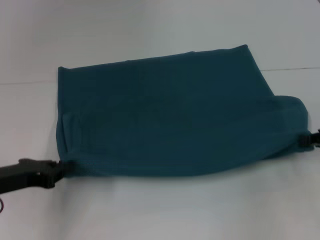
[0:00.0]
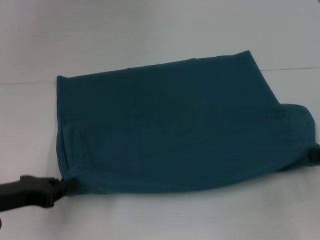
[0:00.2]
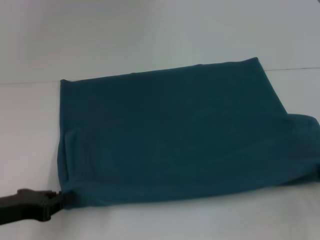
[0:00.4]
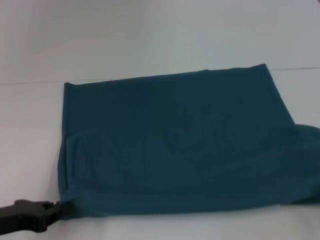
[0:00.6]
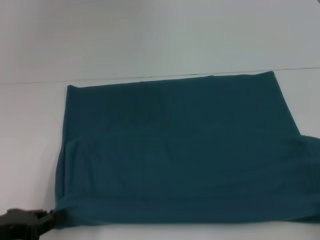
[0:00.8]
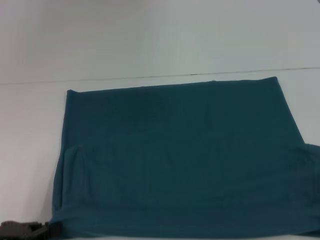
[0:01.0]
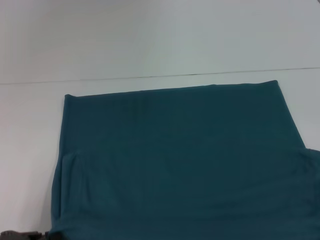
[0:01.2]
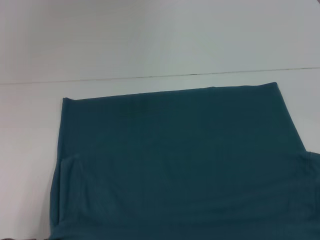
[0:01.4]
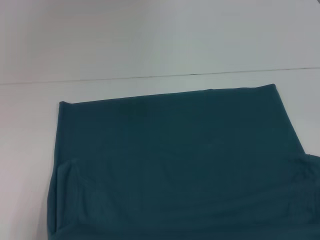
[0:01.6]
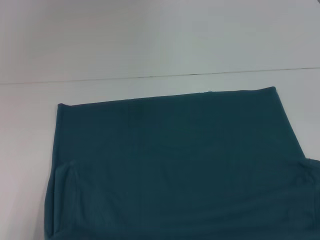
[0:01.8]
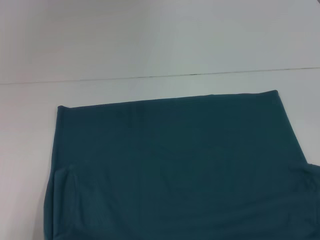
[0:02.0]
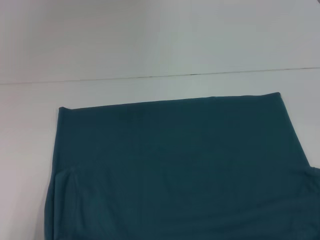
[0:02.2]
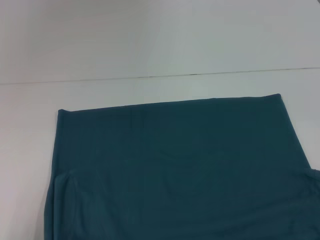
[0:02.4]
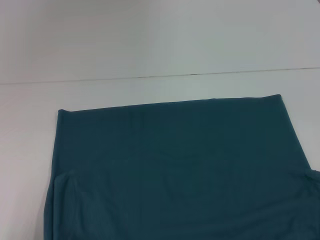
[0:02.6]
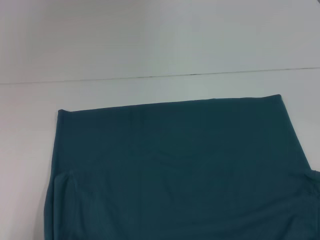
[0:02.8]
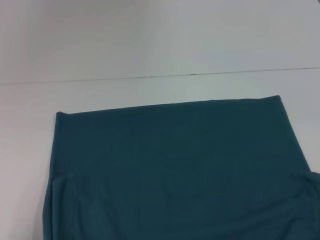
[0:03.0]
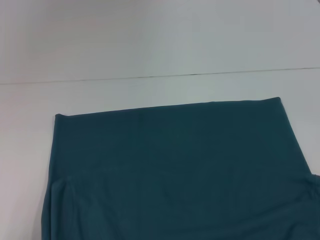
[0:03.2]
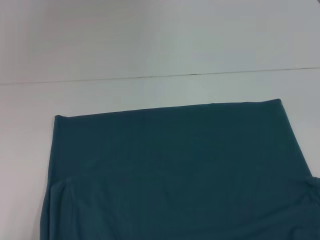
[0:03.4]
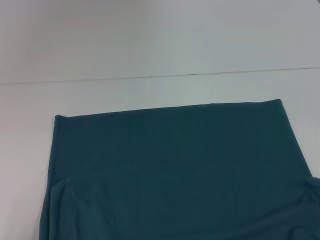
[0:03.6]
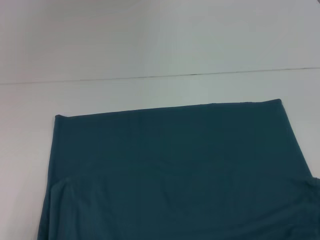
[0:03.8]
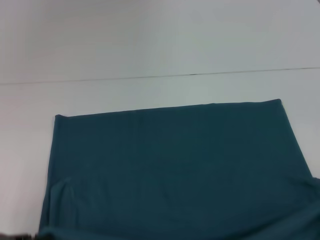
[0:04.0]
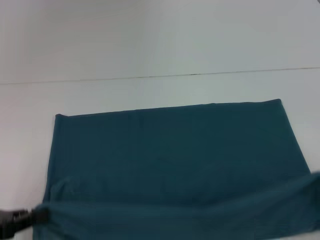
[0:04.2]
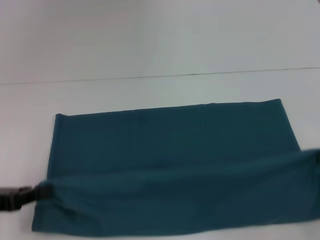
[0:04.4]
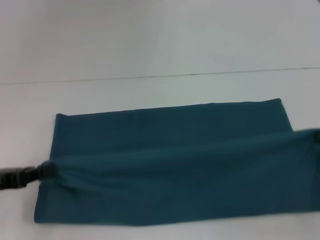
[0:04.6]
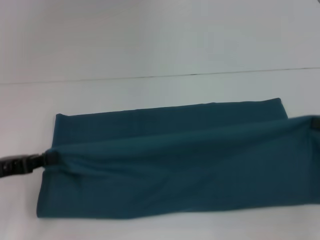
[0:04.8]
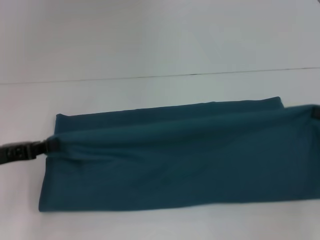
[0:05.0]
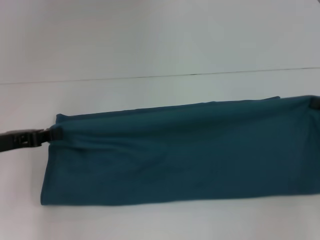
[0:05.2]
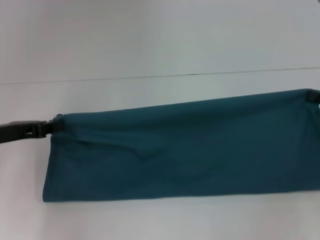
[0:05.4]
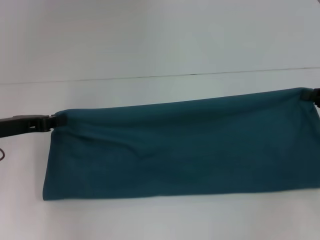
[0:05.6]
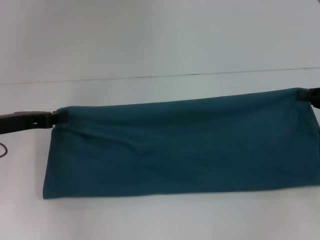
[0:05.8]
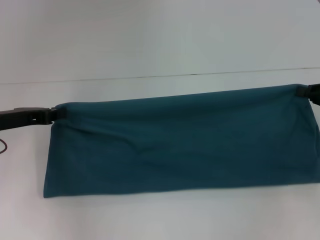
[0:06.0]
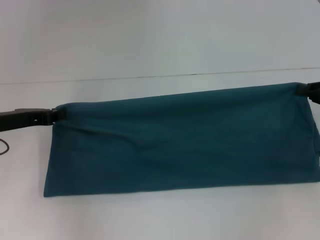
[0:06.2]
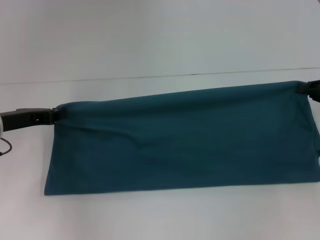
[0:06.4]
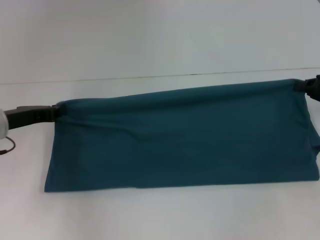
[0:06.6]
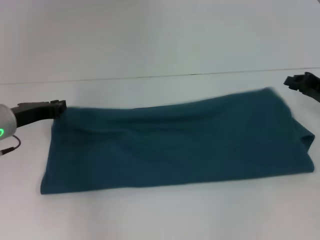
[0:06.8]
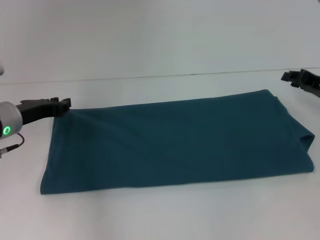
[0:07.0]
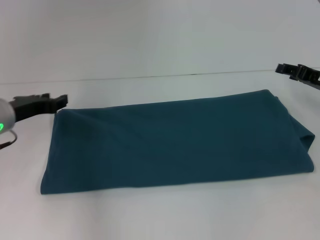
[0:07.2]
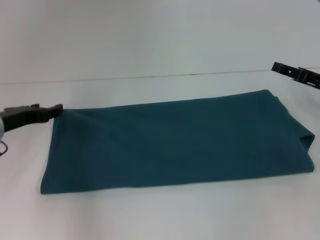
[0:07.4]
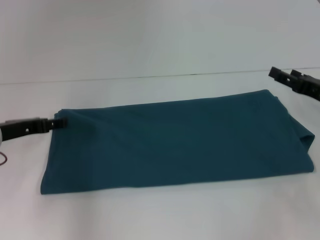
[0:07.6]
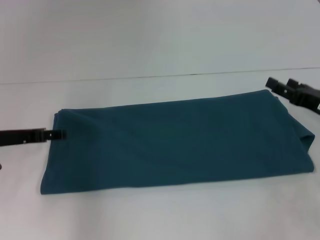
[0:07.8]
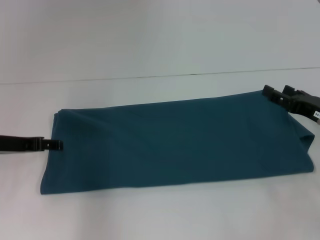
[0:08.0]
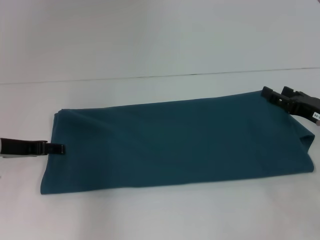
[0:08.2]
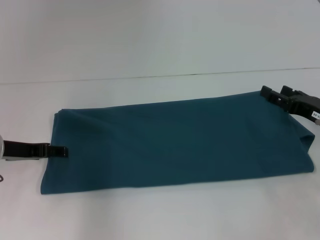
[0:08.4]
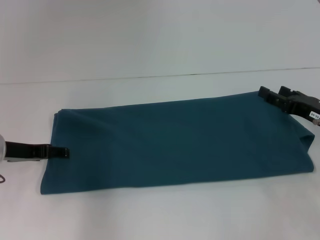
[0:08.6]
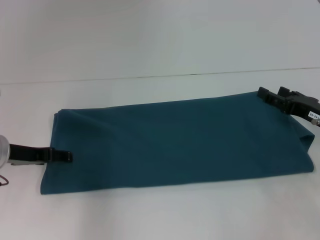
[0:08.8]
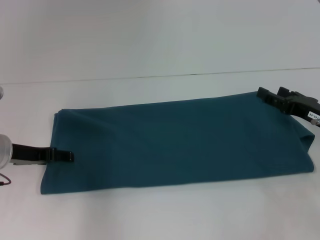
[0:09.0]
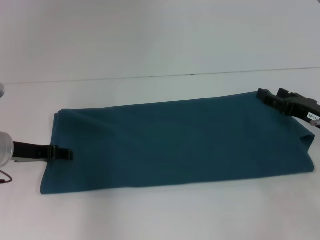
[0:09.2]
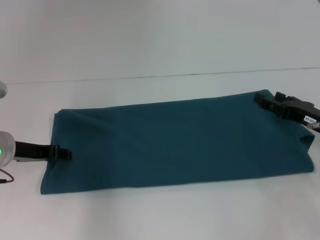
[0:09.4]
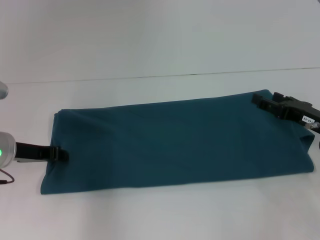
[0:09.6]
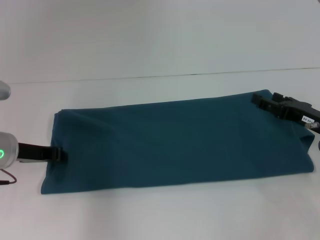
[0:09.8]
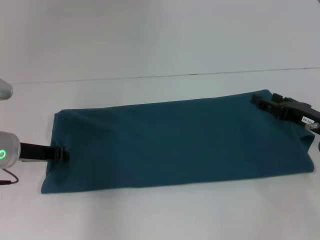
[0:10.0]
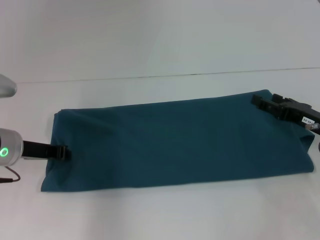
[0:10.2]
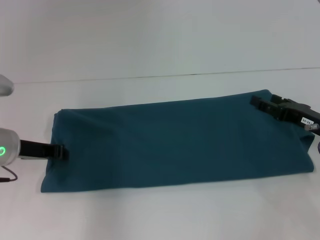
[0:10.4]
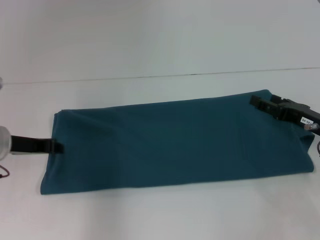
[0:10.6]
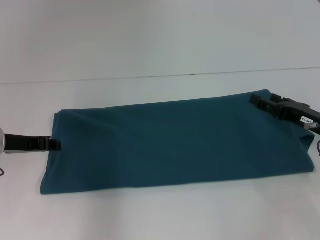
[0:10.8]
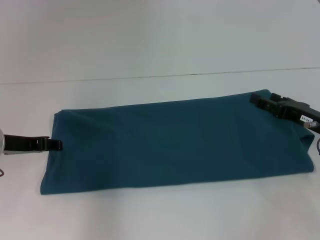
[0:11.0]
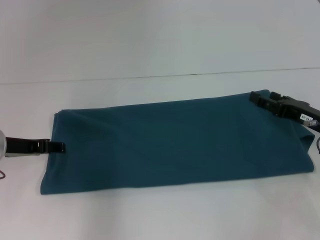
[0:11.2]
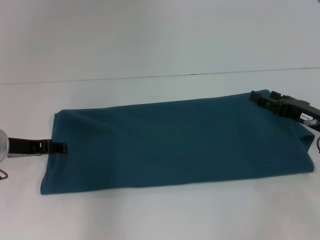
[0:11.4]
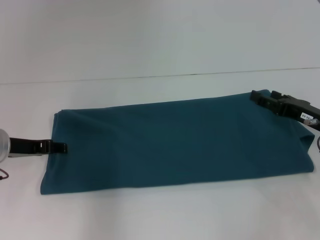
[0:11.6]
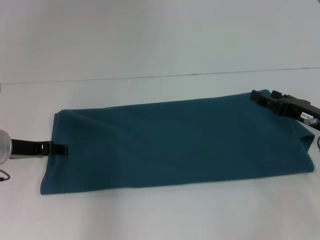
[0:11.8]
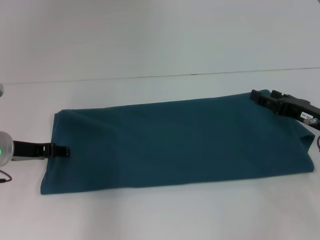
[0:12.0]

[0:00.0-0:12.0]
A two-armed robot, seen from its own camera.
Step, 0:00.0 to 0:03.6: Pull the clothes with your left hand.
Step, 0:00.0 to 0:03.6: Pull the clothes with your right hand.
Step, 0:03.8 to 0:07.2: Fold the clothes to the left.
Step, 0:03.8 to 0:07.2: Fold the clothes to the right.
0:00.0 to 0:01.6: Both grippers travel together backward, approximately 15 cm.
0:01.6 to 0:03.0: There are only small adjustments of the grippers.
0:03.0 to 0:04.4: The left gripper heads forward, covering some 10 cm. The right gripper heads forward and upward, covering roughly 10 cm.
0:04.4 to 0:06.0: Both grippers move forward, about 10 cm.
0:06.0 to 0:07.6: The left gripper opens its fingers. The right gripper changes place by about 5 cm, and opens up.
0:09.0 to 0:10.4: The left gripper closes its fingers.
0:10.4 to 0:12.0: The left gripper opens.

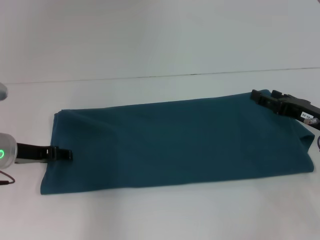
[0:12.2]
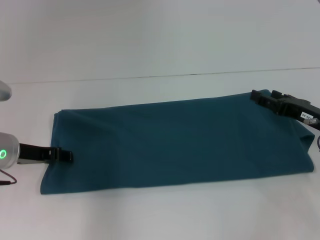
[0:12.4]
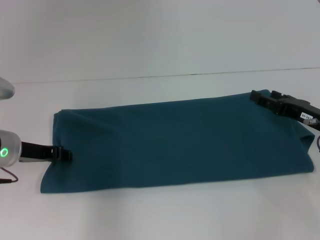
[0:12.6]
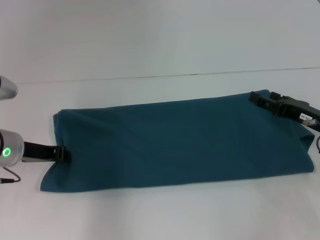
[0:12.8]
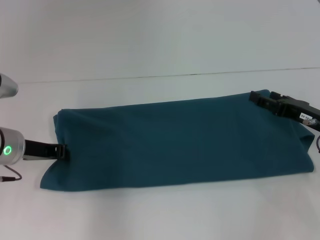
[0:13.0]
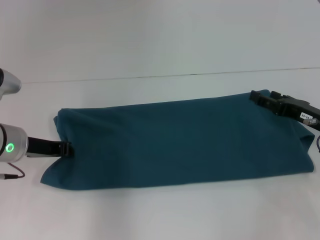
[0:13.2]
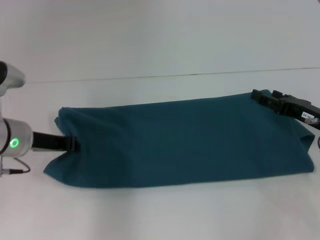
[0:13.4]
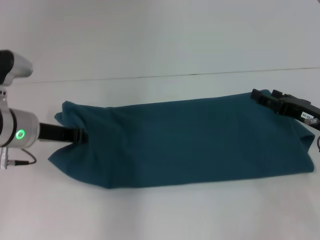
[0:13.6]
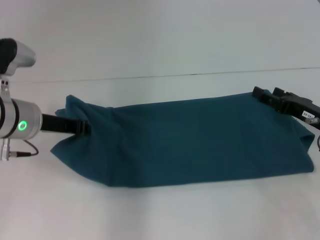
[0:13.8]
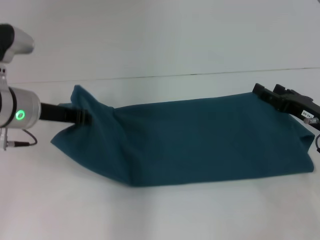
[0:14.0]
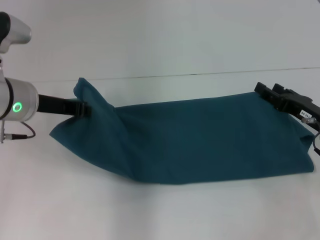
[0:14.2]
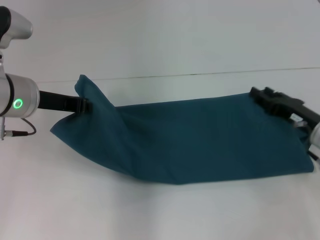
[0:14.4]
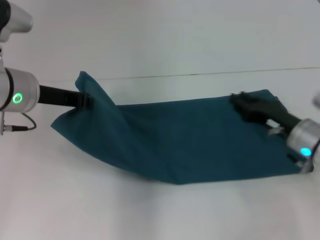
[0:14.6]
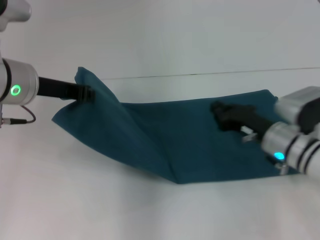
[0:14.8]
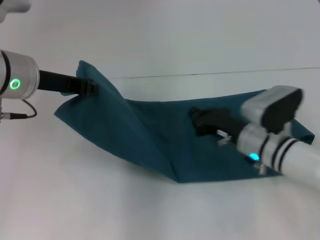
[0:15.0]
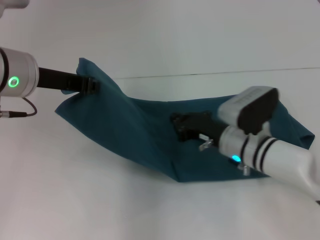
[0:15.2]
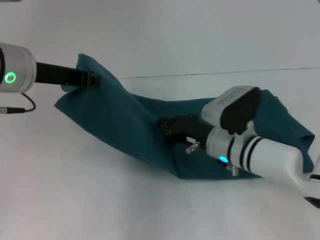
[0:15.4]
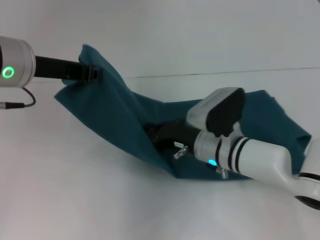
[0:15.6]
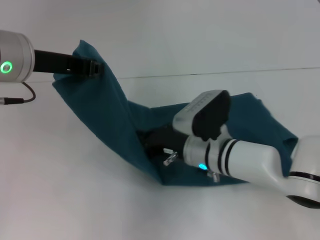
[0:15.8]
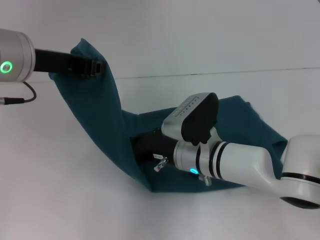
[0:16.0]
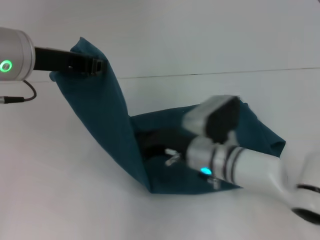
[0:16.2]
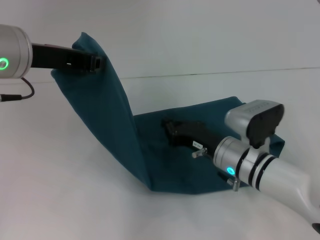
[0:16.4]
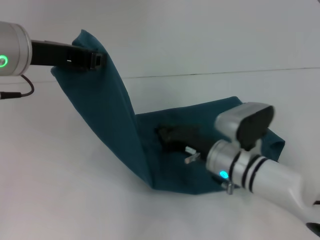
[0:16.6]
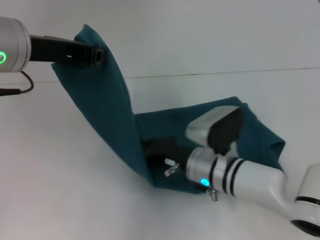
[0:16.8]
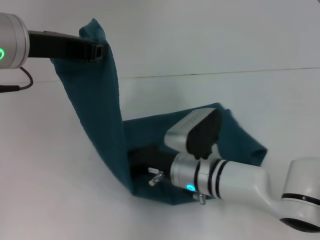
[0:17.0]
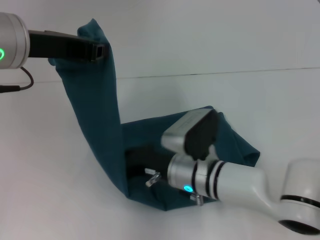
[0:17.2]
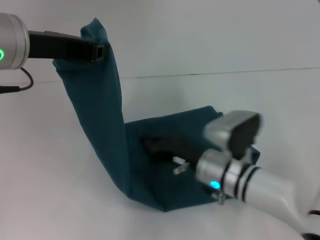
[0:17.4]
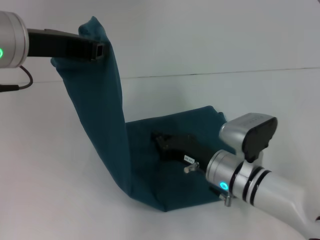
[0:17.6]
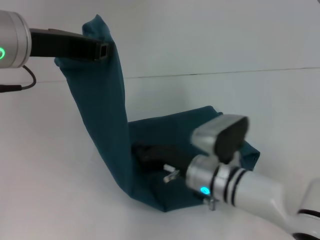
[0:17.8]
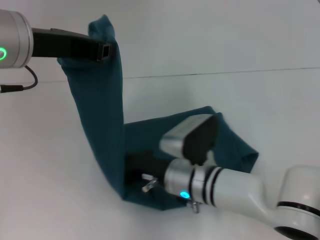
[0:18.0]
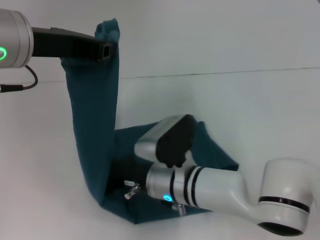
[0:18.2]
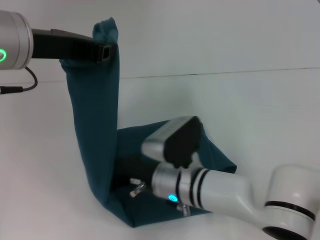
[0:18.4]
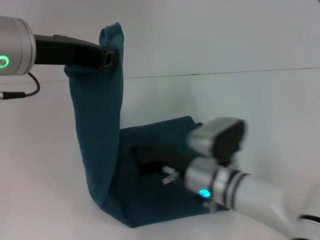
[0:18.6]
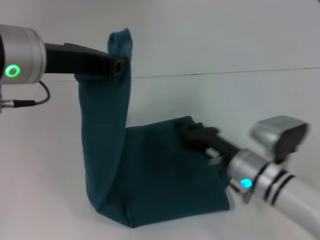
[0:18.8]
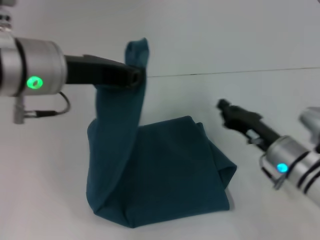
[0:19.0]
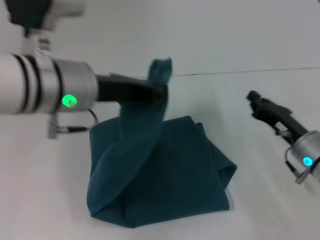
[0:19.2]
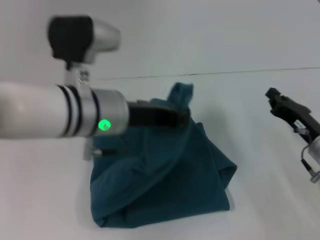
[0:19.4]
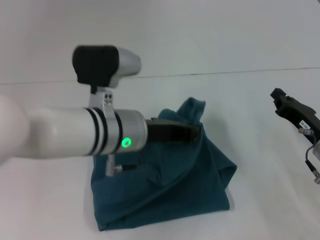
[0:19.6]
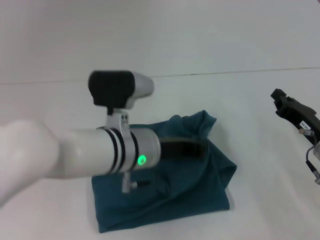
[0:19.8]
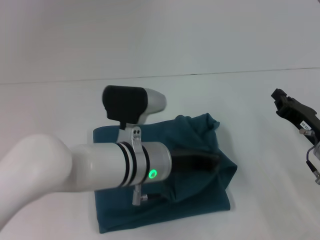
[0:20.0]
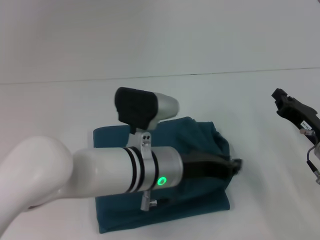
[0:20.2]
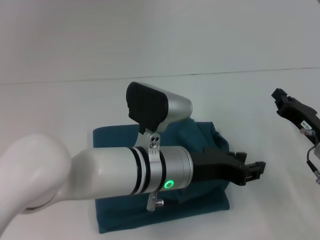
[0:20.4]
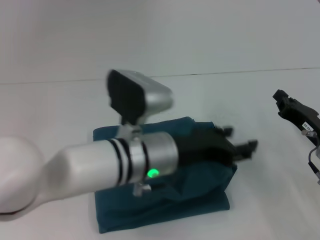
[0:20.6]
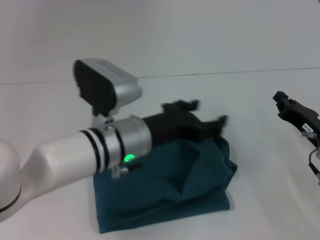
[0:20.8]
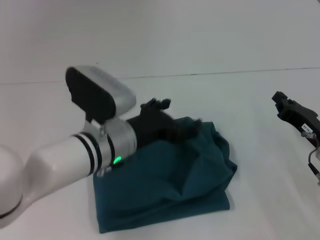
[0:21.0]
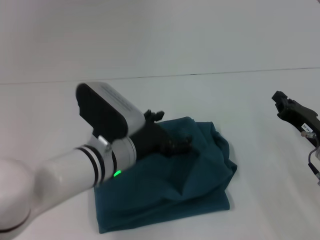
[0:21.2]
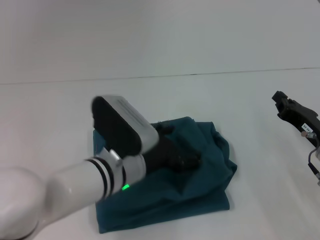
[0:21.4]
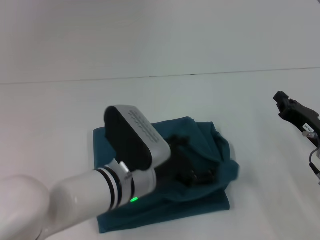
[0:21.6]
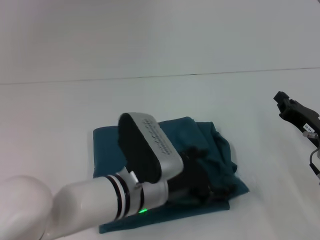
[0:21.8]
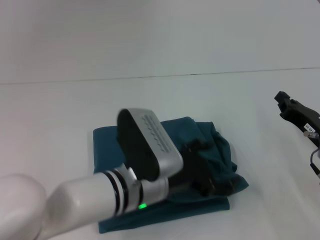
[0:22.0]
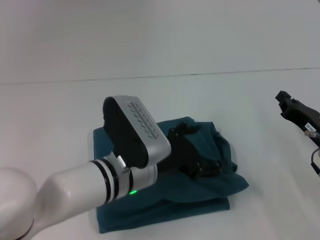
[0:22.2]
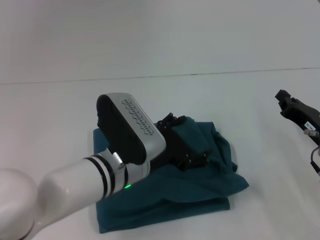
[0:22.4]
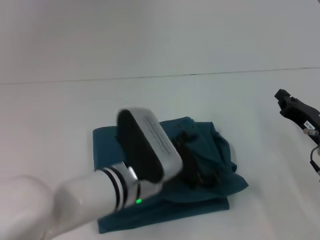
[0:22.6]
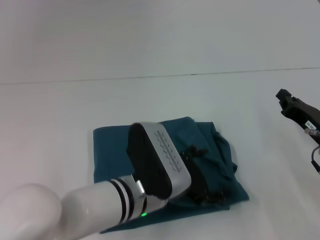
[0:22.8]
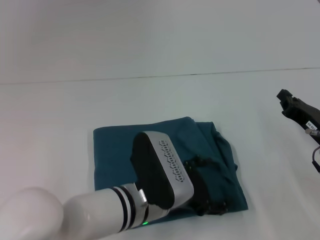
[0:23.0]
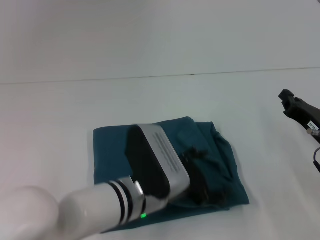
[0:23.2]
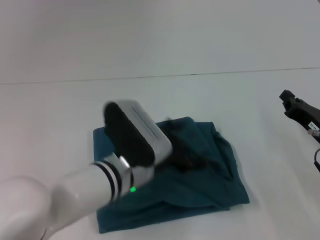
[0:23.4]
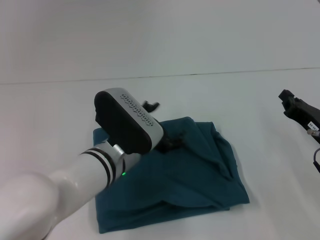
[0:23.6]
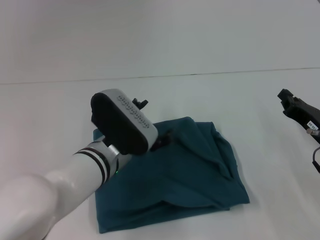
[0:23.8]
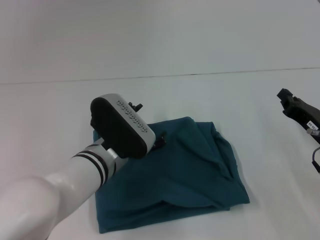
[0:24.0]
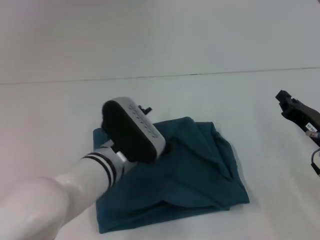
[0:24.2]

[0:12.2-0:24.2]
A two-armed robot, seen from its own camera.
Step, 0:12.2 to 0:18.4: Press the middle of the clothes with your right hand.
Step, 0:18.6 to 0:20.4: Fold the clothes to the left.
0:12.2 to 0:13.8: The left gripper goes approximately 5 cm upward, and closes.
0:13.8 to 0:15.2: The left gripper moves upward, approximately 10 cm. Meanwhile the right gripper heads to the left, covering some 15 cm, and closes up.
0:15.2 to 0:16.6: The right gripper goes to the left and returns, approximately 10 cm each way.
0:16.6 to 0:18.2: The right gripper goes left and right, some 10 cm each way, reversing 2 times.
0:18.2 to 0:19.8: The left gripper heads downward and to the right, covering about 20 cm; the right gripper heads to the right, covering roughly 25 cm.
0:19.8 to 0:21.2: The left gripper opens its fingers.
0:21.2 to 0:22.6: The grippers move only a little.
